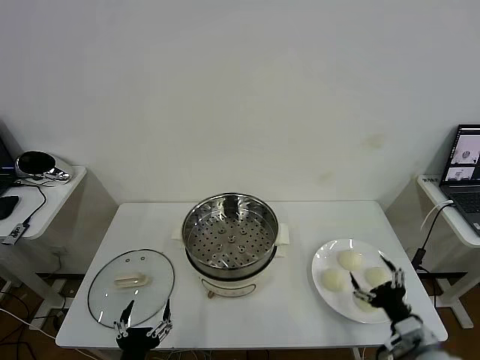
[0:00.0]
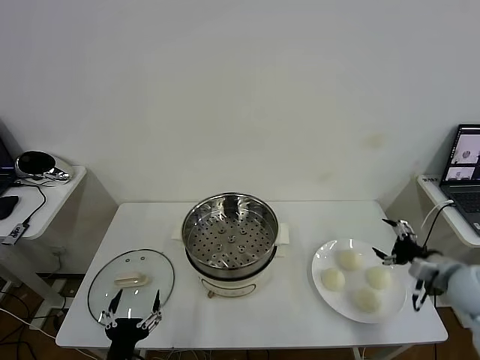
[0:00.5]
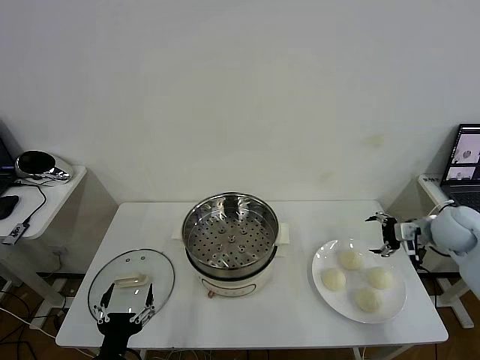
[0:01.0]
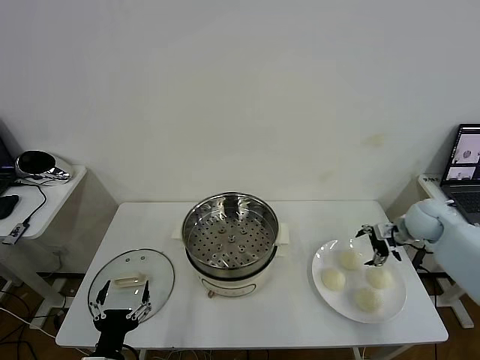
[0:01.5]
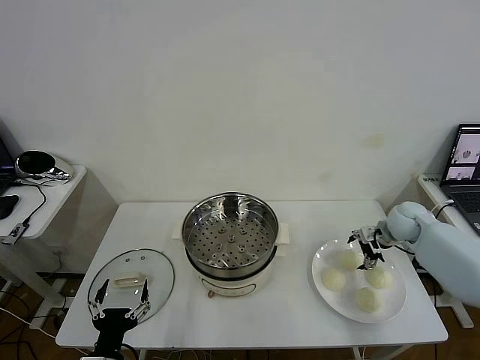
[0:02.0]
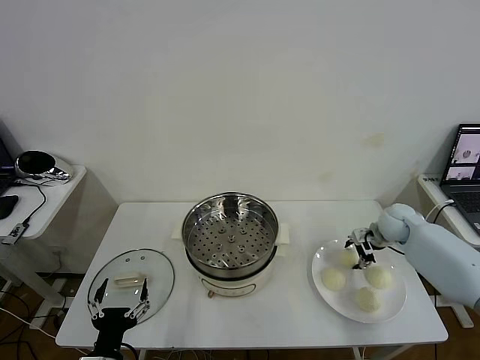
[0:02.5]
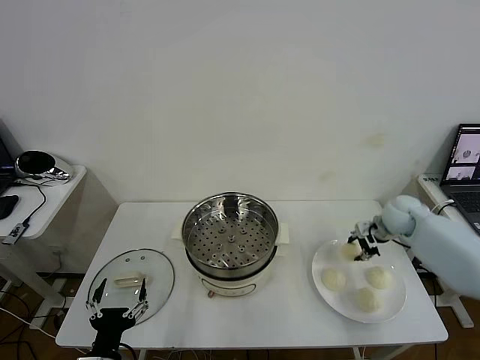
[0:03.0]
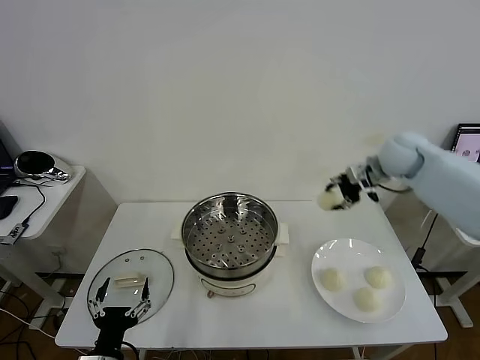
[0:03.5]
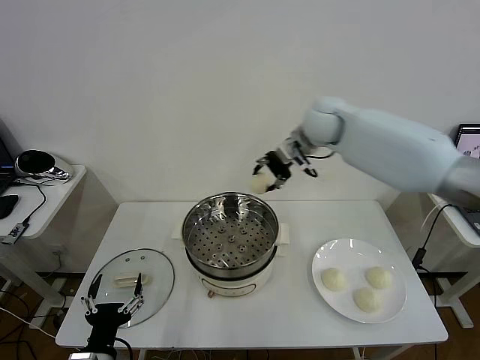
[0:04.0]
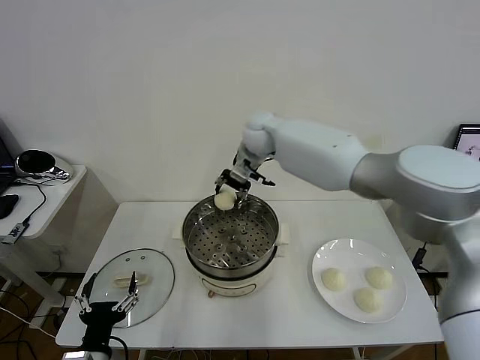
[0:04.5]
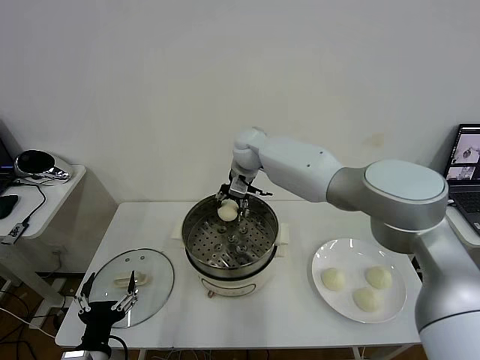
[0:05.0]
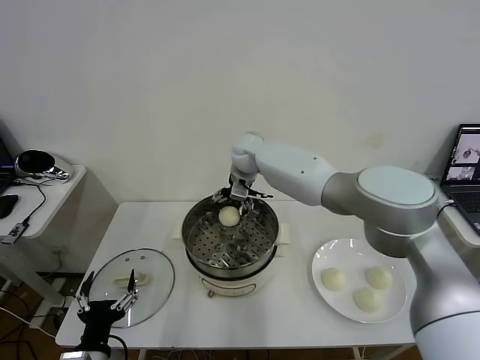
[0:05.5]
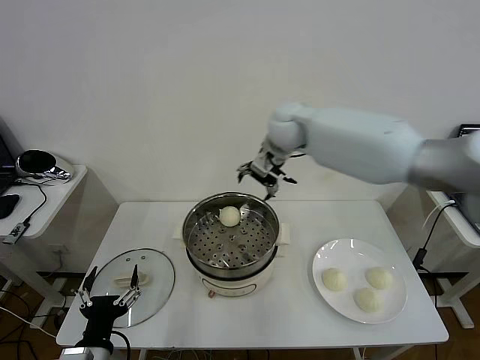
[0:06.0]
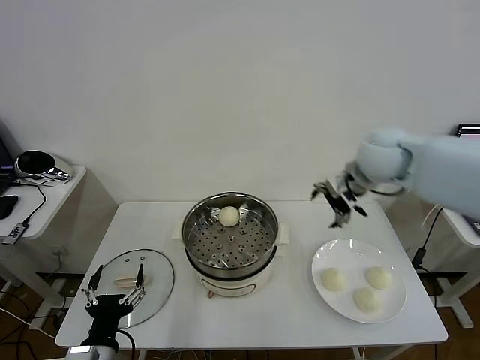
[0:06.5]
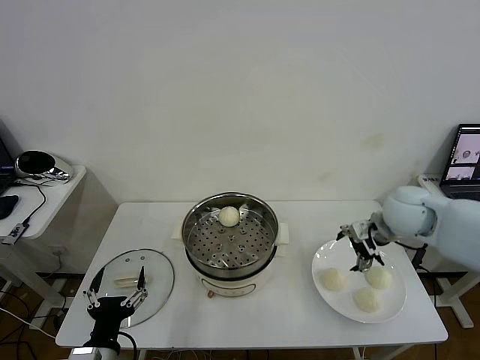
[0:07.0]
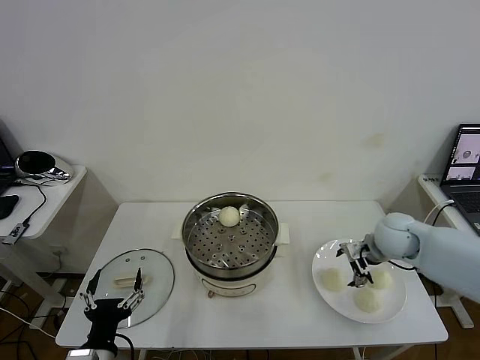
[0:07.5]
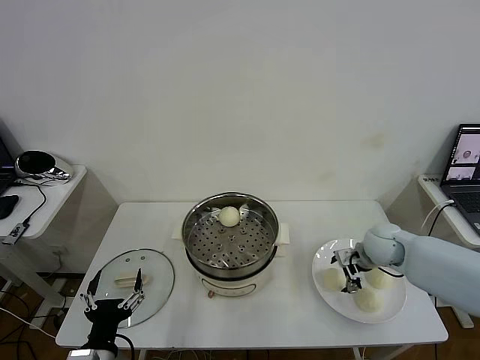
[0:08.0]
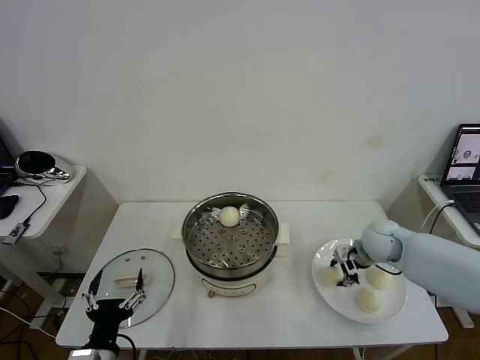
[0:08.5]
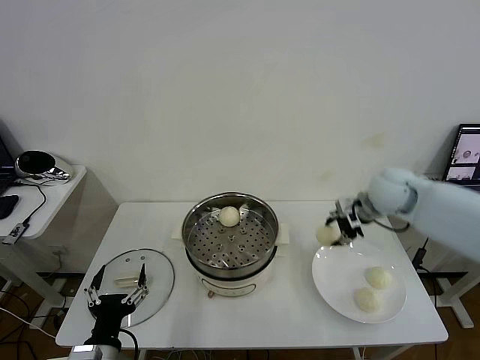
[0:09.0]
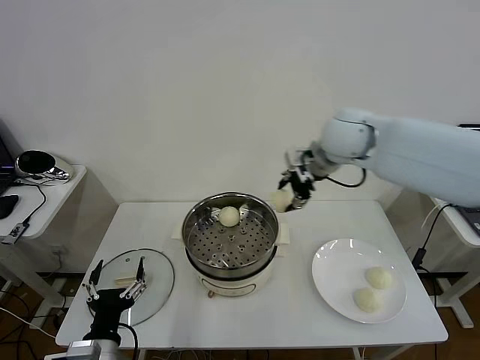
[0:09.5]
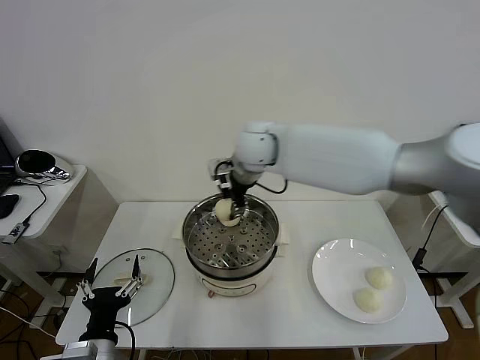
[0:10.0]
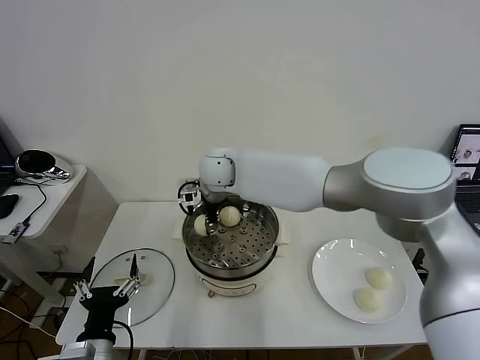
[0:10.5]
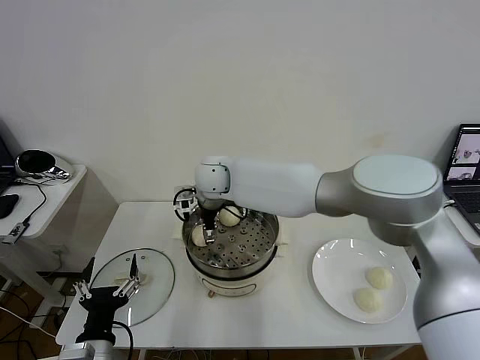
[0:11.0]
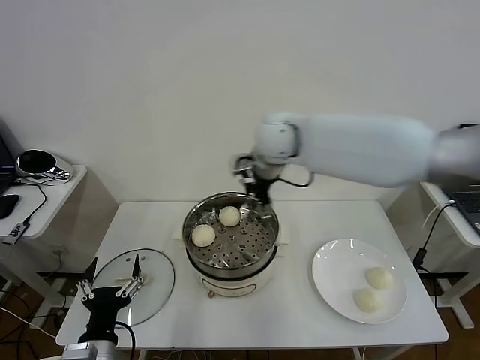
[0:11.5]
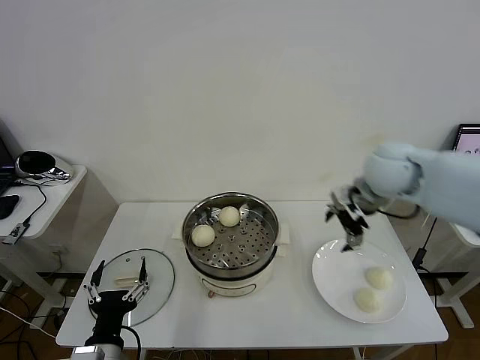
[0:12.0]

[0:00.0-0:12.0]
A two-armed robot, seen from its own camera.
Task of the whole recording: take steamed baozi put them in steamer then cover it.
Step, 0:00.0 to 0:02.5: Grasp the baozi in the plate with right gripper.
Step, 0:03.0 to 0:05.5: Place the baozi on the steamer with right gripper.
Step, 0:06.0 to 0:08.5: Grasp the baozi in the plate with right gripper.
Step, 0:09.0 to 0:10.5: Place the baozi on the steamer with right gripper.
0:02.0 to 0:04.0: The right gripper shifts some 35 cm to the left and upward, and closes up.
0:04.0 to 0:06.0: The right gripper shifts some 5 cm to the left, and opens.
0:06.0 to 0:08.0: The right gripper travels downward, to the right and backward by some 35 cm.
0:08.0 to 0:10.0: The right gripper shifts approximately 40 cm to the left and upward, and closes its fingers.
0:10.0 to 0:12.0: The right gripper is displaced to the right by roughly 25 cm, and opens.

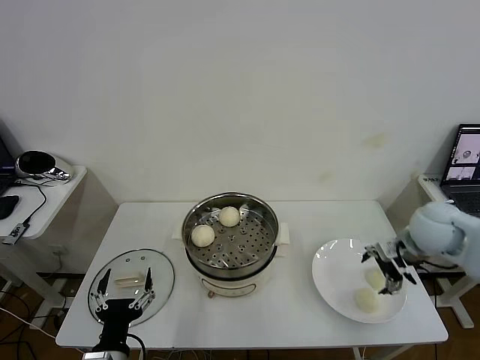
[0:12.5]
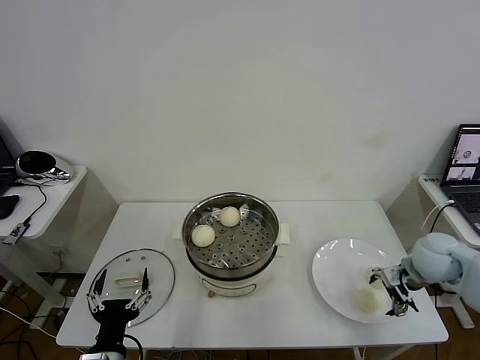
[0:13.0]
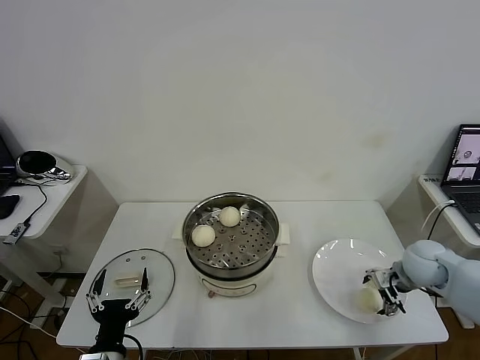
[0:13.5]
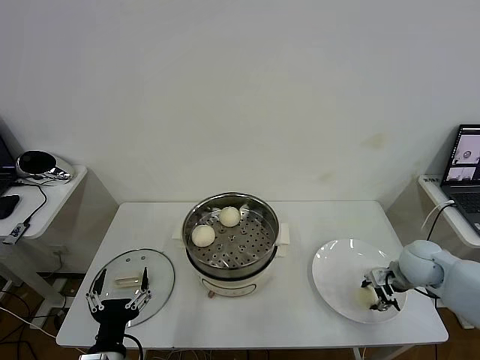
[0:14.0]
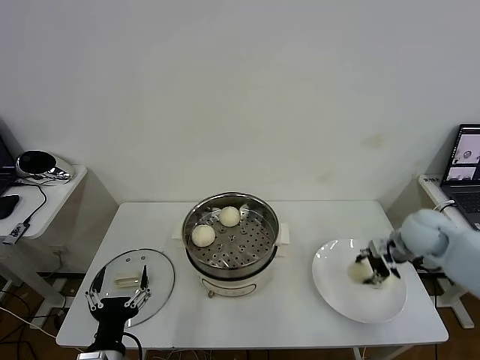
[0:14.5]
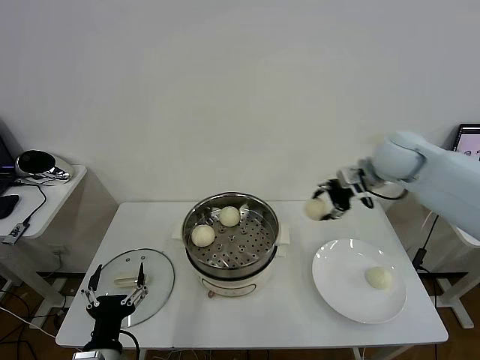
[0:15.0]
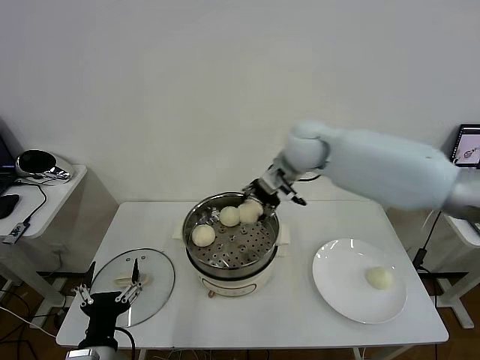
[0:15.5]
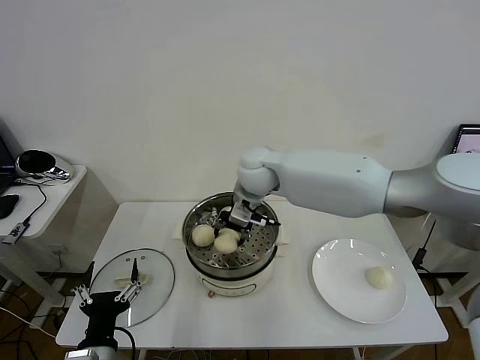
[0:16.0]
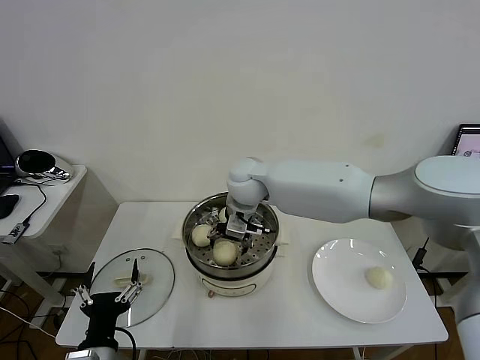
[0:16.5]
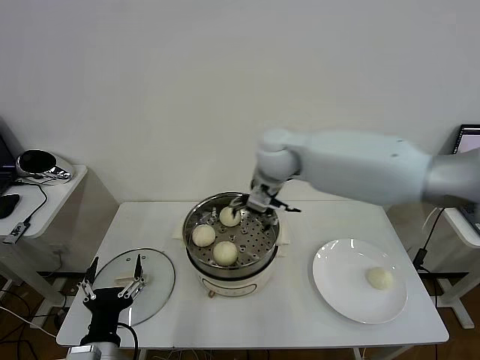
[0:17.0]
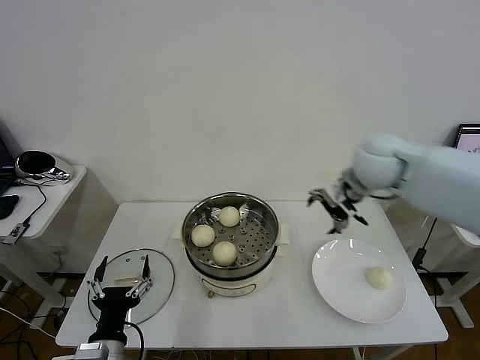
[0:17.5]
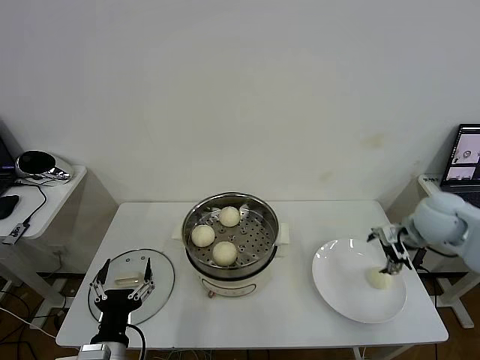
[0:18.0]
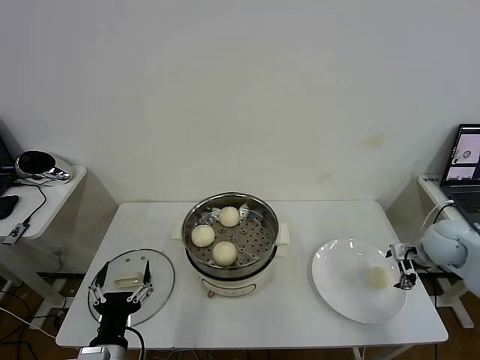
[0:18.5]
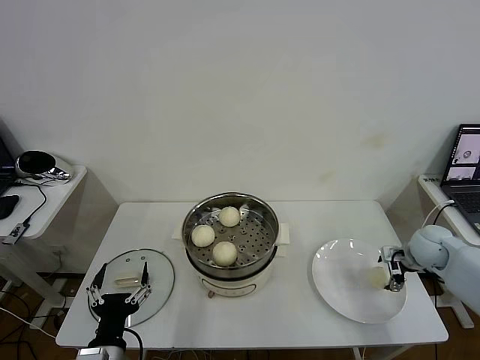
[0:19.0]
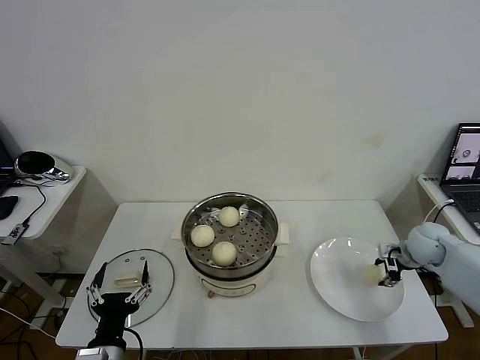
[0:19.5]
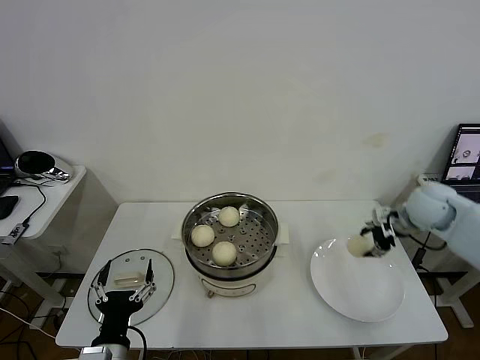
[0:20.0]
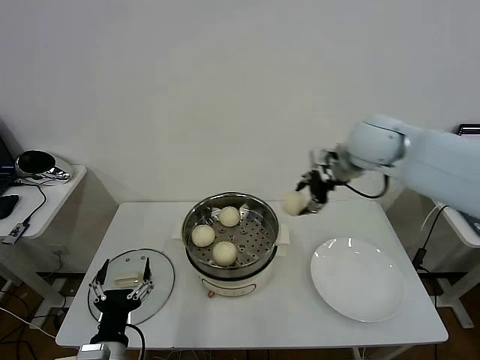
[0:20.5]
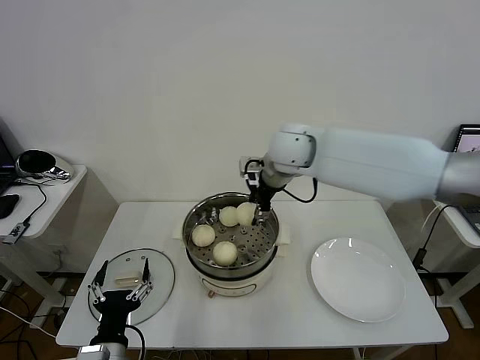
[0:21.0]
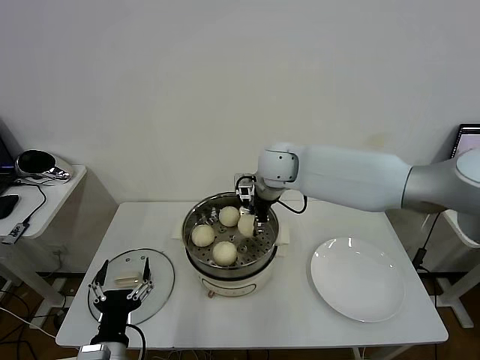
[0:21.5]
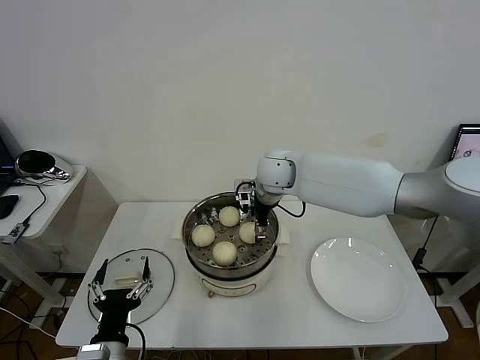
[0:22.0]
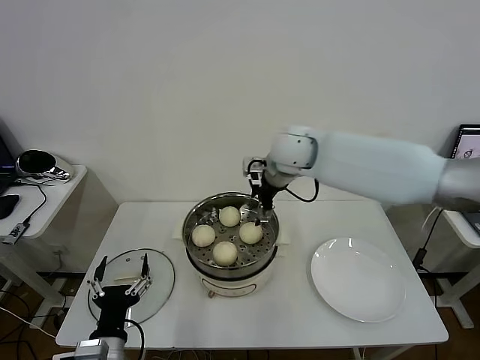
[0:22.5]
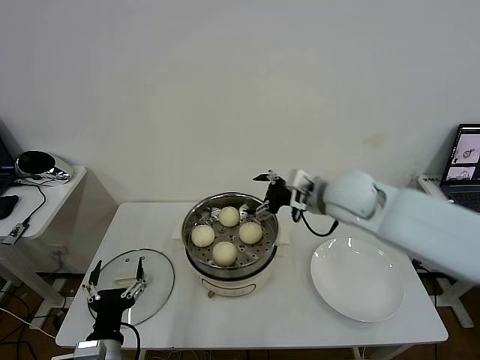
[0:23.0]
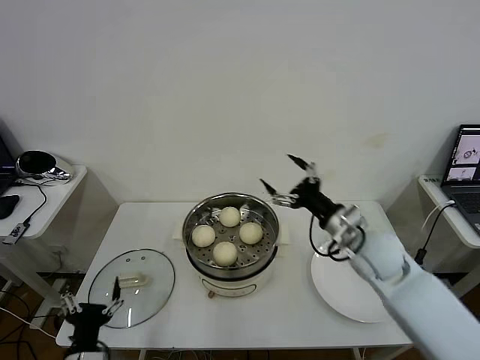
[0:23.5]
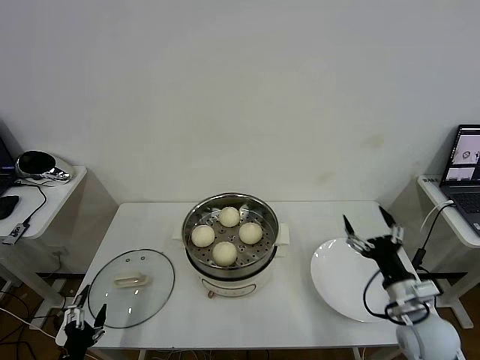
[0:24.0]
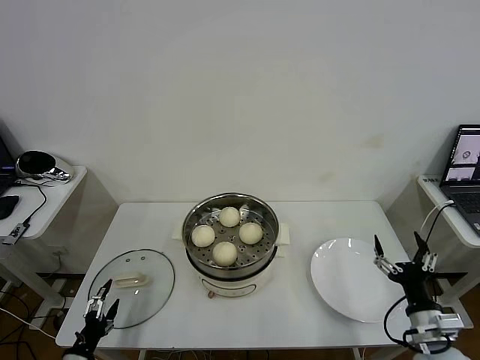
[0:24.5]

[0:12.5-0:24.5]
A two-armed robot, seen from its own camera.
Task of the whole recording: take steamed baozi put them in steamer then cover it.
Step, 0:14.0 to 0:16.5: Place the baozi on the steamer with right gripper.
Step, 0:17.0 to 0:19.0: Grasp the baozi in the plate with right gripper.
Step, 0:20.0 to 0:22.0: Place the baozi on the steamer with right gripper.
0:12.5 to 0:14.5: The right gripper goes approximately 5 cm downward, and closes its fingers.
0:14.5 to 0:16.5: The right gripper moves to the left, about 40 cm, and opens up.
0:16.5 to 0:18.5: The right gripper heads to the right, covering some 40 cm.
0:18.5 to 0:20.5: The right gripper travels to the left and upward by some 30 cm, and closes up.
0:20.5 to 0:22.5: The right gripper heads to the left, covering about 15 cm, and opens its fingers.
0:22.5 to 0:24.5: The right gripper travels backward, to the right and downward by some 50 cm. The left gripper shifts some 15 cm to the left and downward.

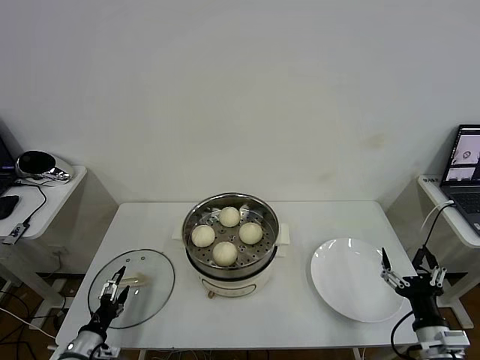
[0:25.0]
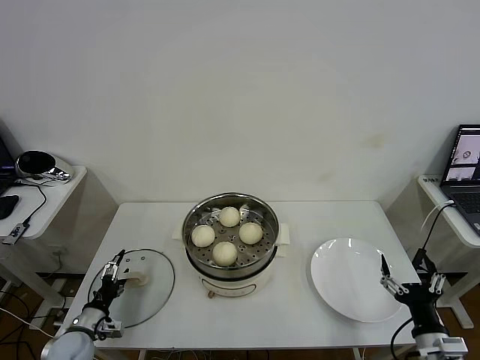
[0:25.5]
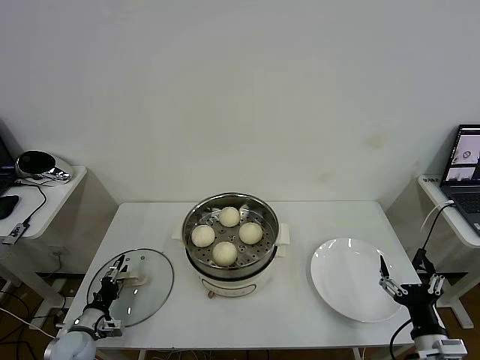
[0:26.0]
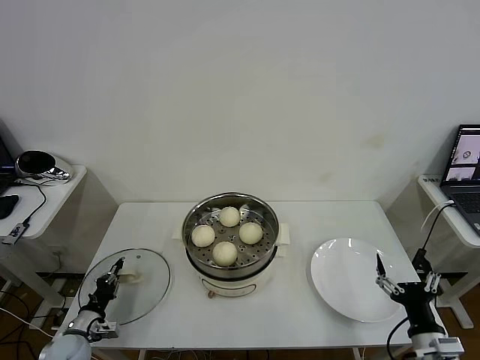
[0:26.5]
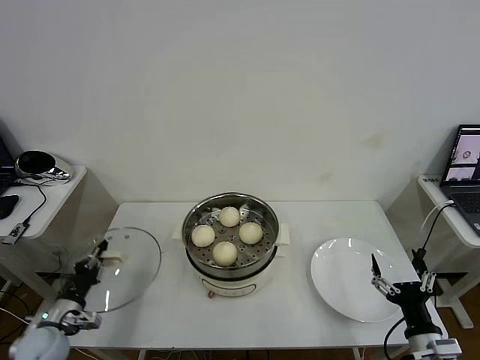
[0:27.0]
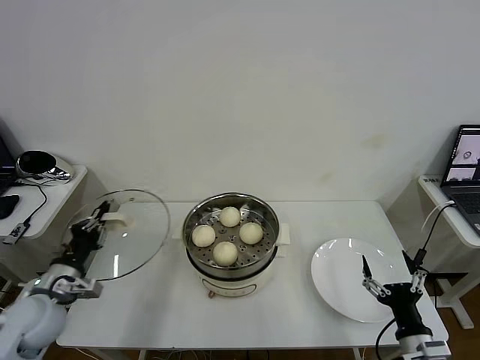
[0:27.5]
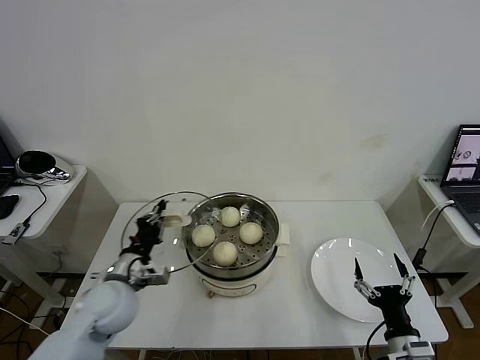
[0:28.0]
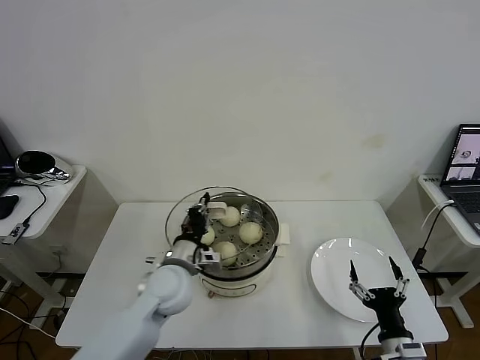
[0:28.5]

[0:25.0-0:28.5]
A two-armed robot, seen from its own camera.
Task of the whole recording: take steamed baozi put them in steamer then cover it.
0:25.0 to 0:27.0: The left gripper heads forward, covering some 5 cm, and closes up.
0:27.0 to 0:28.5: The right gripper shifts by roughly 5 cm. Meanwhile the left gripper goes roughly 30 cm to the right and upward.
